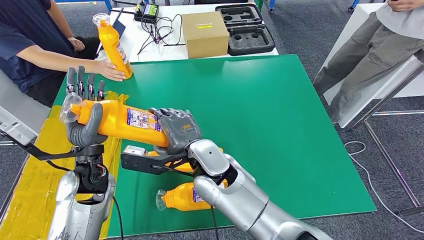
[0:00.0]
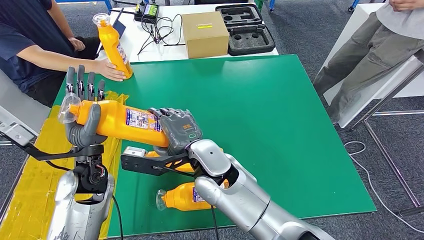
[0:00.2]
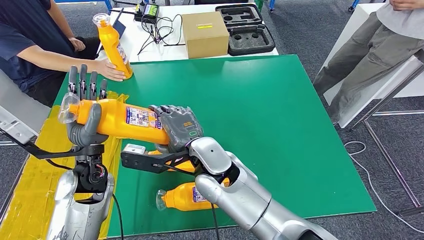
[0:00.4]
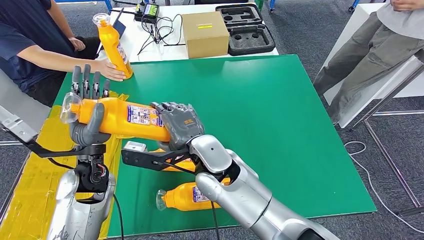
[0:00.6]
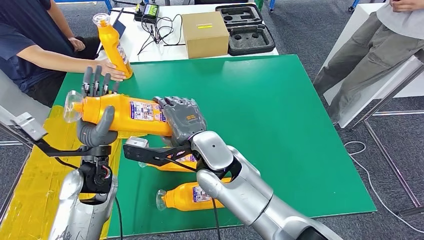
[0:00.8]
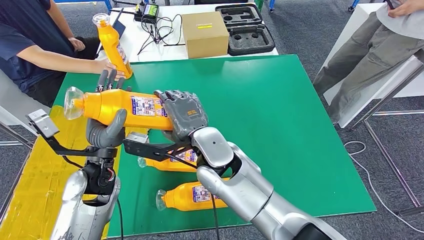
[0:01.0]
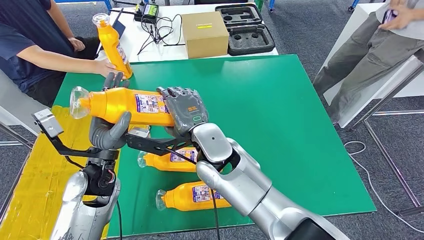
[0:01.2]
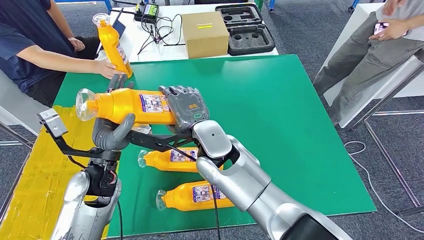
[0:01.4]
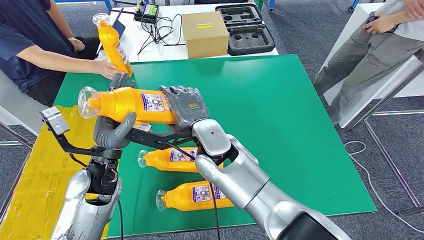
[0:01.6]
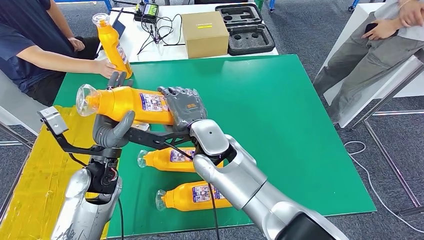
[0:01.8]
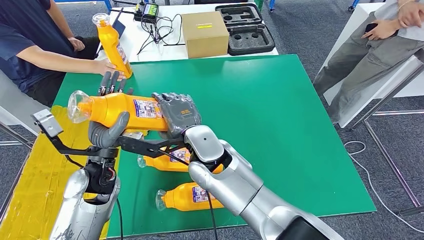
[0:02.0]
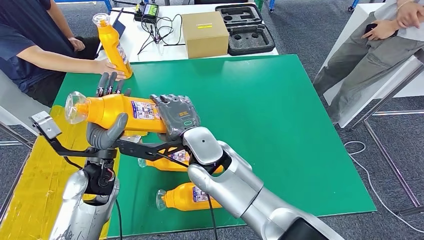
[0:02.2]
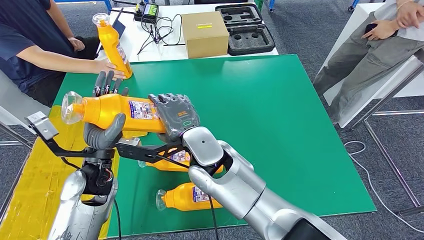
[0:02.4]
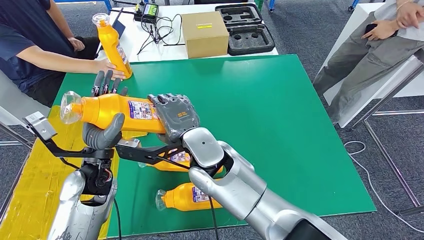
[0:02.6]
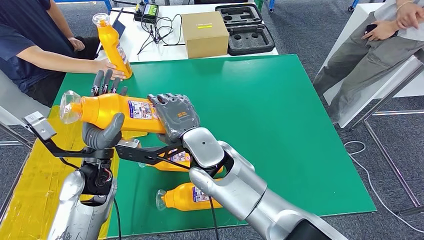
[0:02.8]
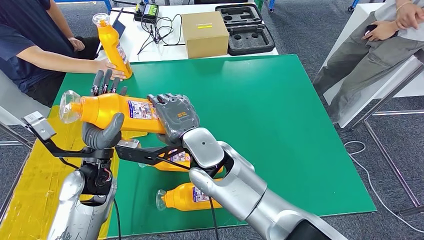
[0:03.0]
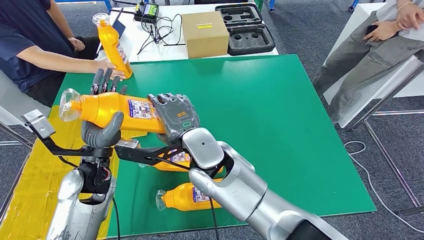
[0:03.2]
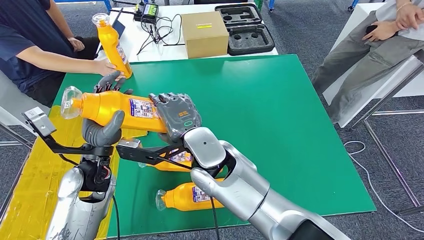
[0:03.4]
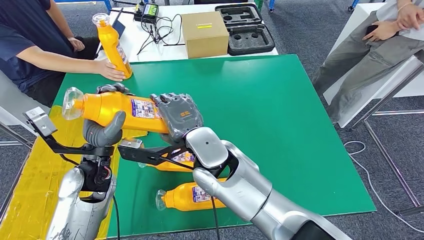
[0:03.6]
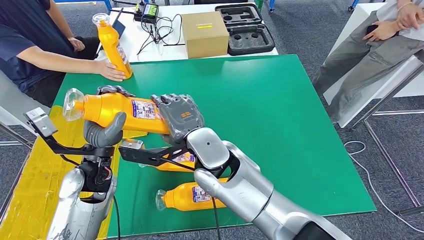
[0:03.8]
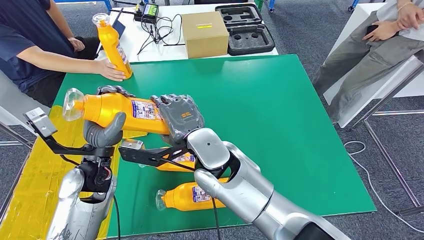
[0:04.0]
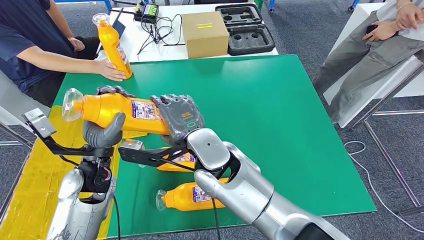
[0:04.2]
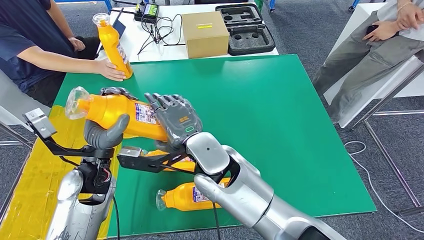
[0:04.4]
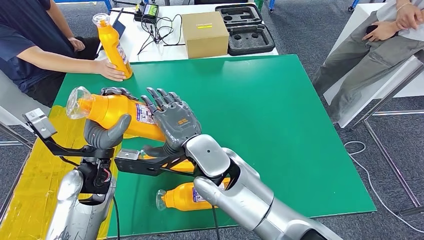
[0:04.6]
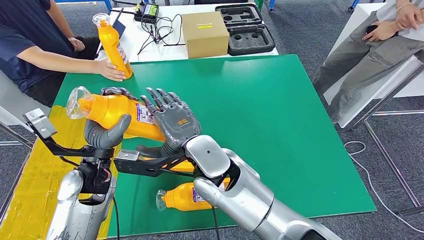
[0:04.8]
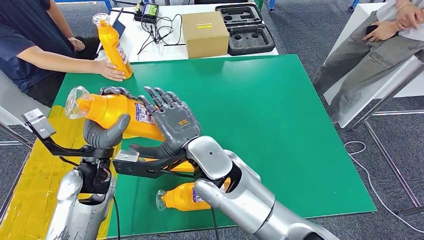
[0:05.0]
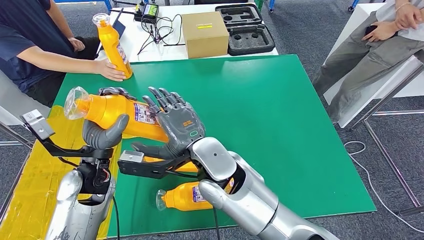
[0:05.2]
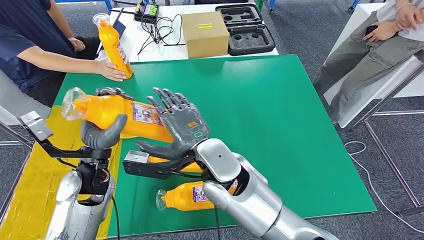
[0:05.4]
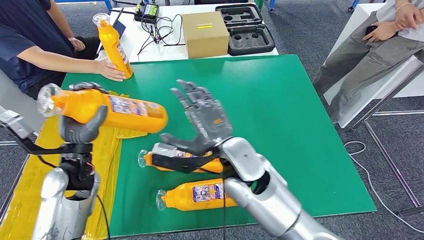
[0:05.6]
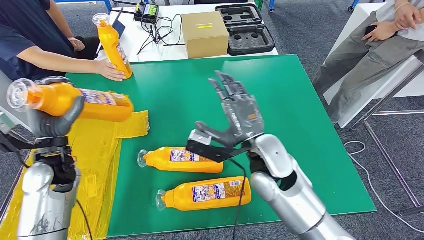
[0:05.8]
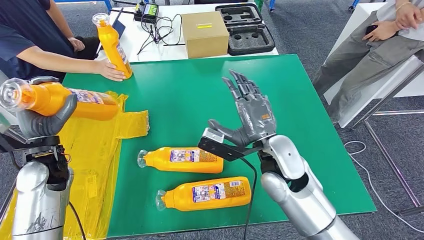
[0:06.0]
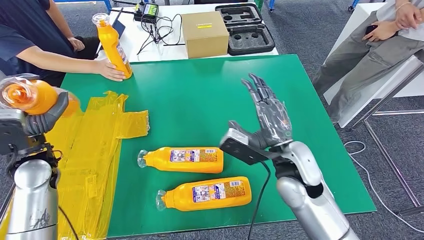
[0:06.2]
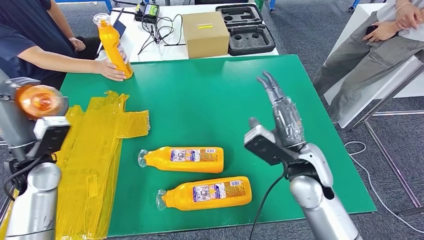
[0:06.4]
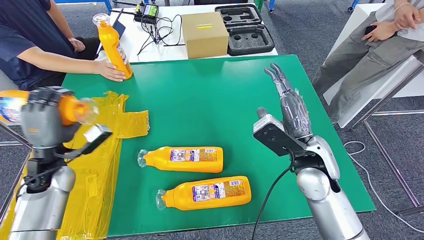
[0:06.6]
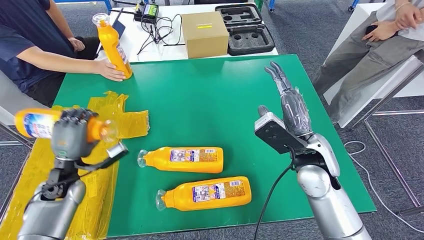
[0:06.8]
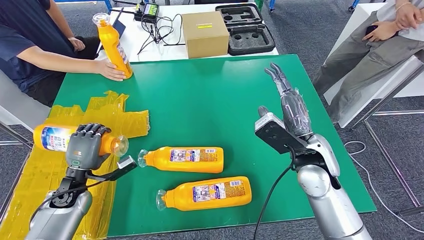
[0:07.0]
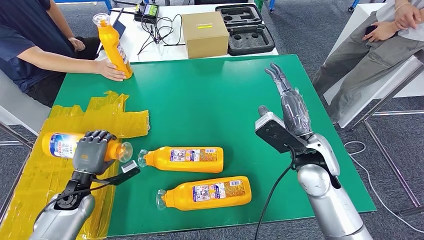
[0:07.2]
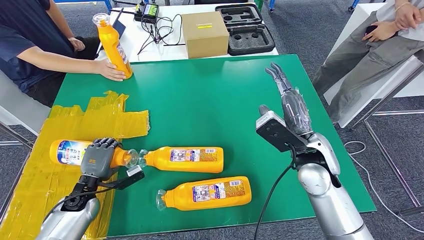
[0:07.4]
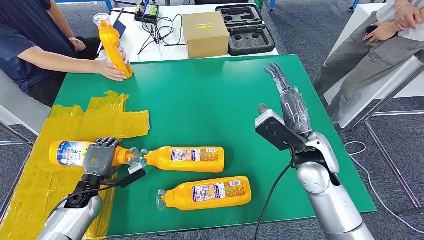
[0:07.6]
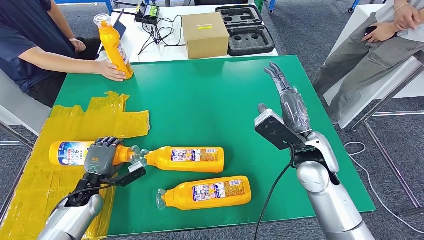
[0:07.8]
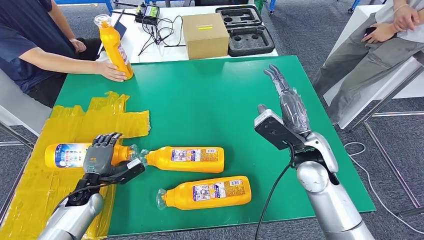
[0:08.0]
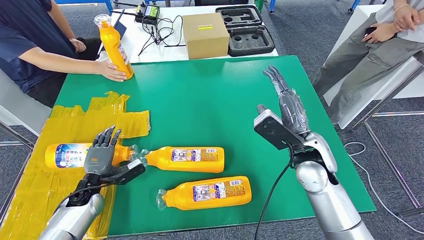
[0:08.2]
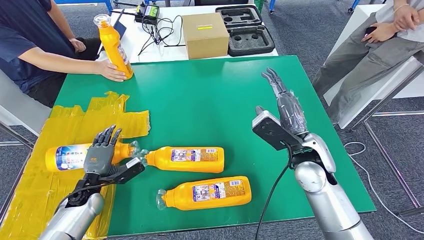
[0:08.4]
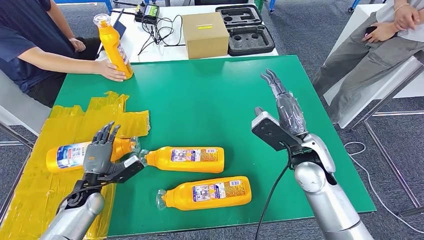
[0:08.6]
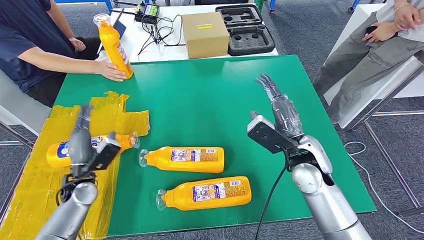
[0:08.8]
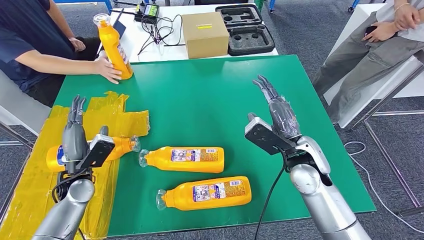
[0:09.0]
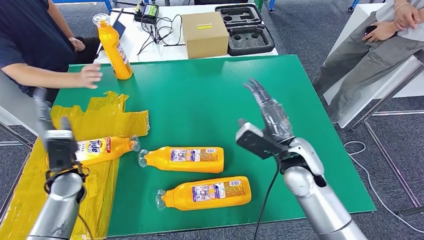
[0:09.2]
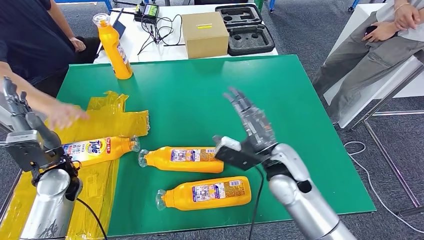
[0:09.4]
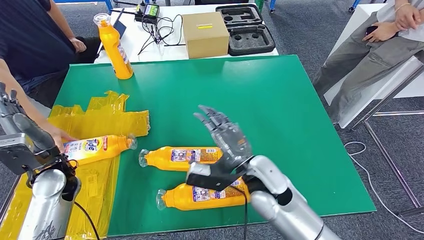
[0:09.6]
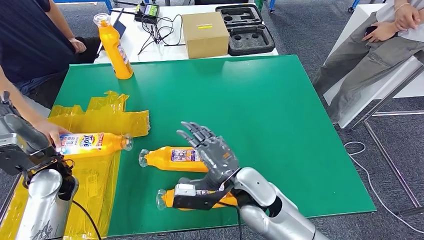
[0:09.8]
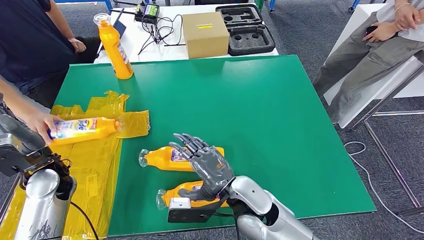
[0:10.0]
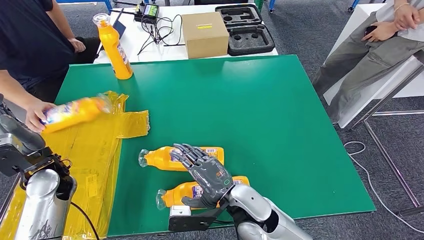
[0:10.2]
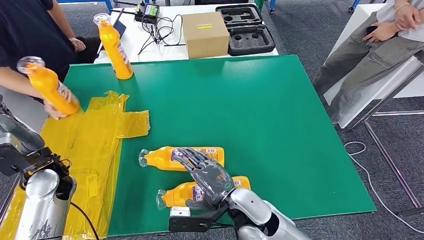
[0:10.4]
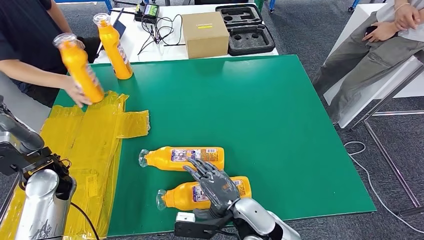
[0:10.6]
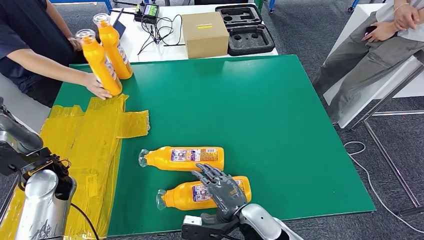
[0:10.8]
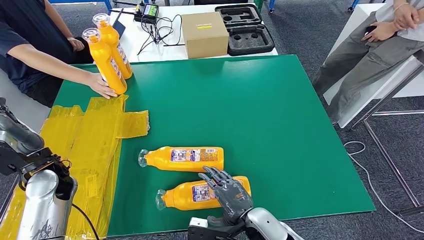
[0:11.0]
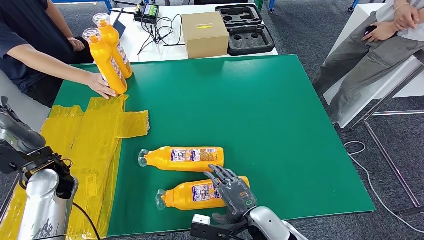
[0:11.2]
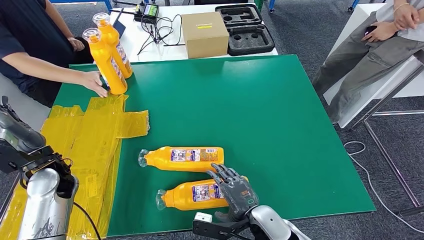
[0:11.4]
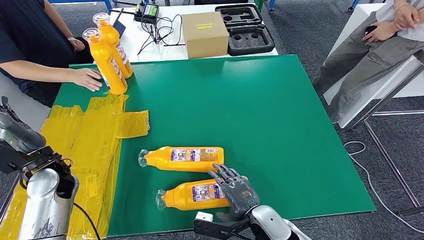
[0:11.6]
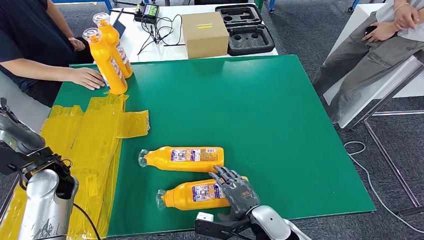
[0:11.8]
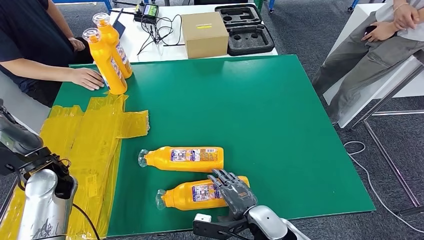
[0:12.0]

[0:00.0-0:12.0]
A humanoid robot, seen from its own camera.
Step, 0:00.6 to 0:09.2: Flip the fast-moving consumer goods bottle to the front side.
0:01.6 to 0:04.4: There are only small adjustments of the hands.
0:07.6 to 0:09.0: The left hand goes approximately 10 cm upward.
0:10.4 to 0:12.0: The right hand is displaced downward by about 5 cm.

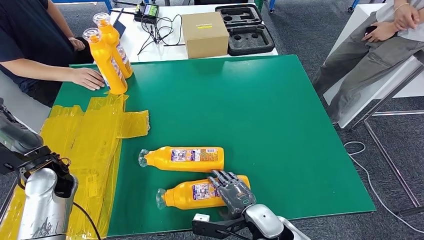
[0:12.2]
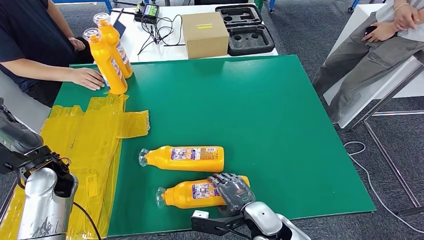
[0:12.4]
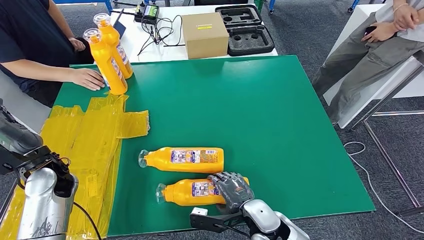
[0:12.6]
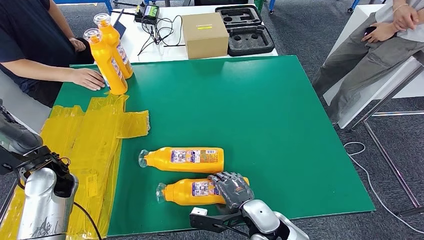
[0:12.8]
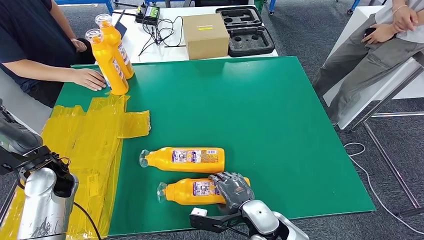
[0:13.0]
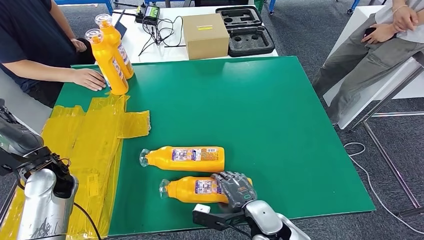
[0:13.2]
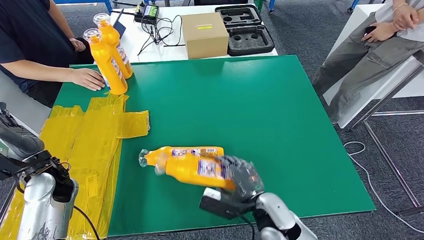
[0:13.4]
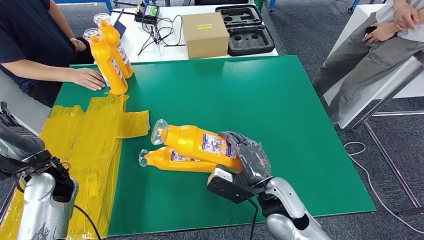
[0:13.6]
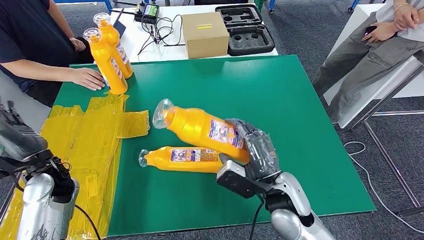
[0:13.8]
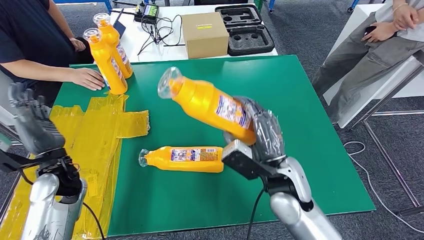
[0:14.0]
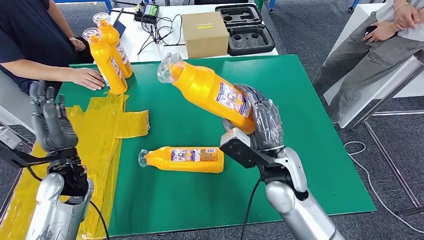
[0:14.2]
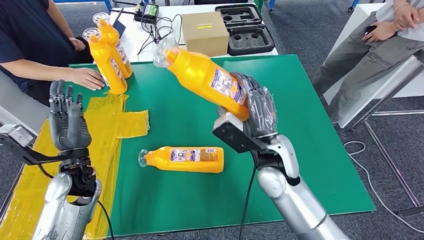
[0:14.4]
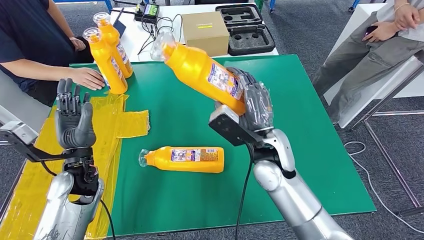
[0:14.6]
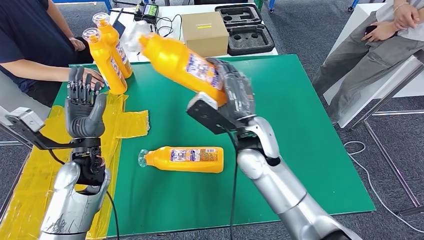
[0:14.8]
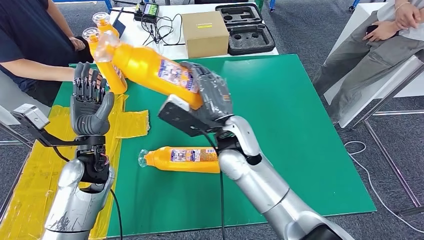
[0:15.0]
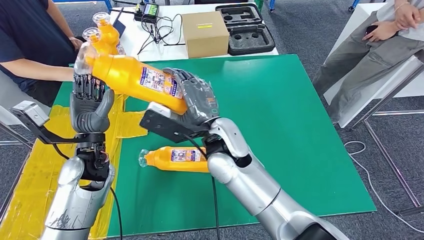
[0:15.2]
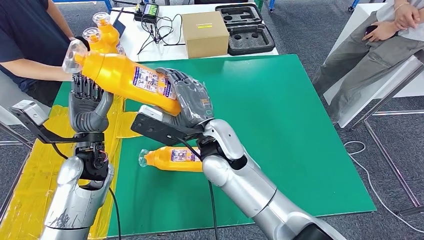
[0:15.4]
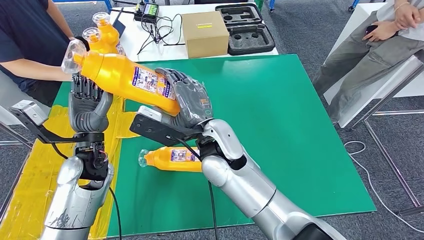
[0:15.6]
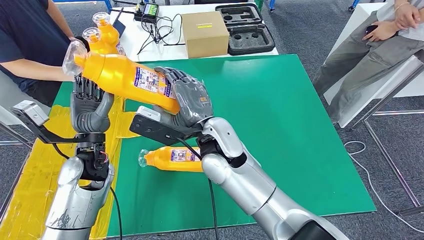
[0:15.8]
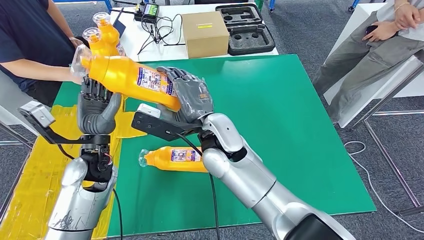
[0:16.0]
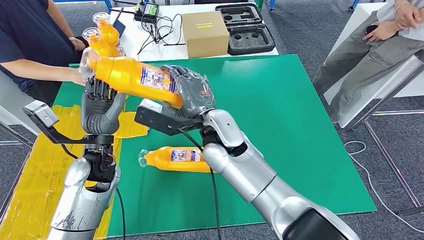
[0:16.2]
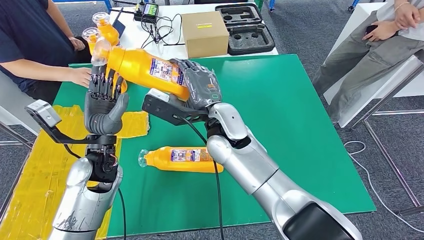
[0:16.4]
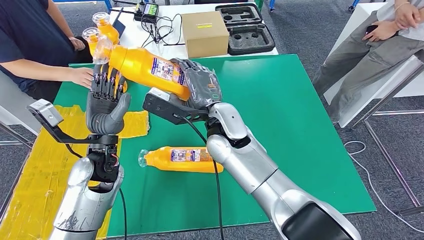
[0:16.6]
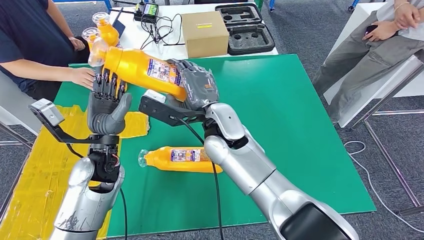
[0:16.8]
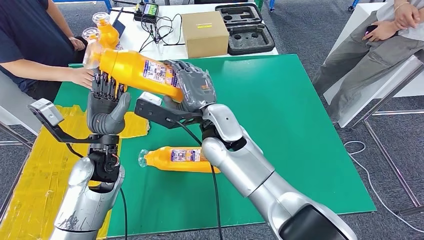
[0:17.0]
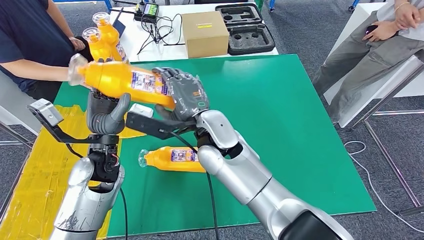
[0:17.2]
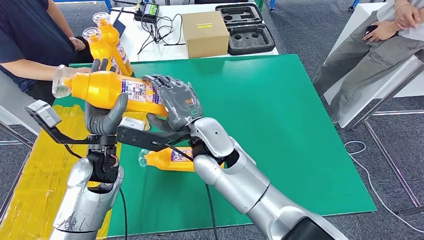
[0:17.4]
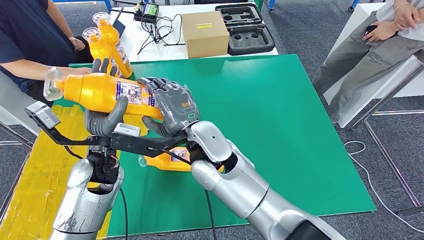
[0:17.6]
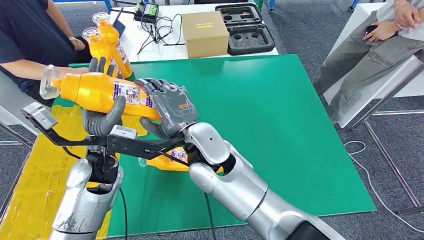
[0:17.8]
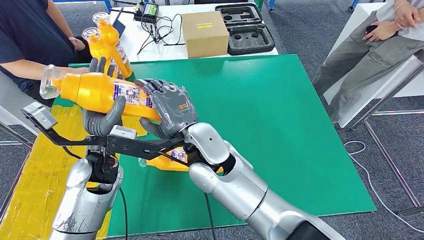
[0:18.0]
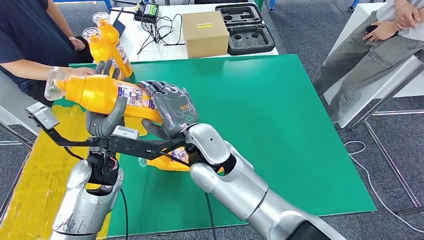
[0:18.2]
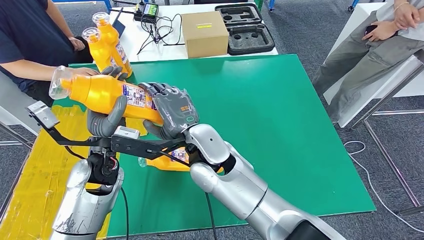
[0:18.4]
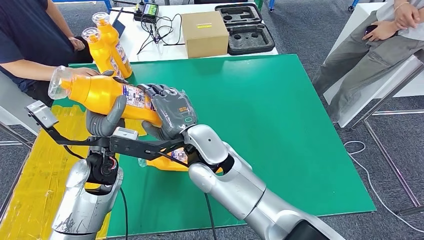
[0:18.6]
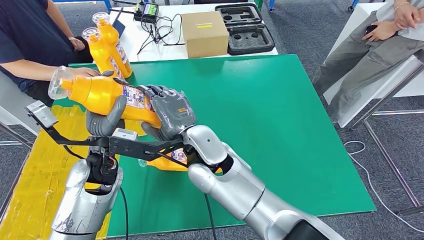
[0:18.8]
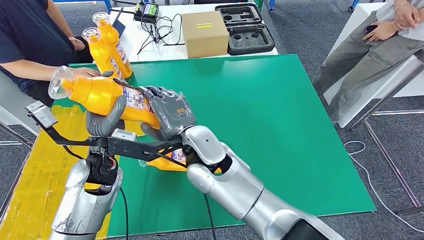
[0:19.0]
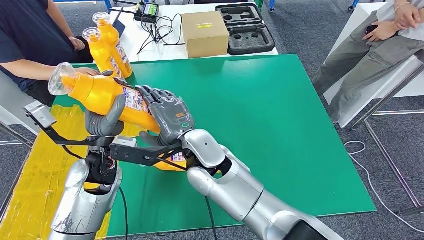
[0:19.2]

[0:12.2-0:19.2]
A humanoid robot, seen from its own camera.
Step, 0:12.6 to 0:17.4: Pick up the fast-moving consumer goods bottle from the table.
0:12.2 to 0:13.6: The right hand travels upward by about 10 cm.
0:15.0 to 0:16.4: There are only small adjustments of the hands.
0:17.8 to 0:19.2: There are only small adjustments of the hands.